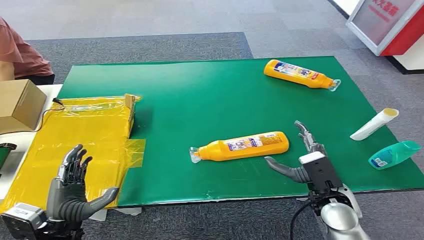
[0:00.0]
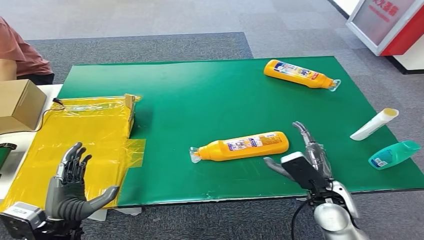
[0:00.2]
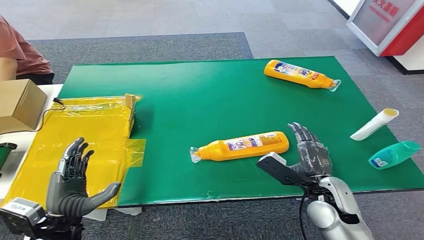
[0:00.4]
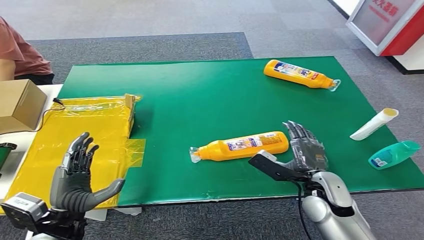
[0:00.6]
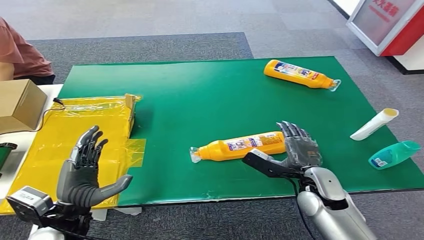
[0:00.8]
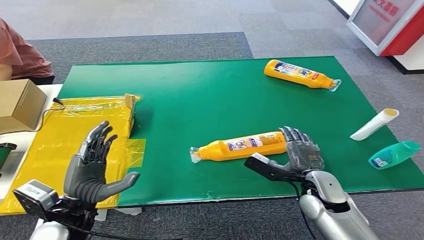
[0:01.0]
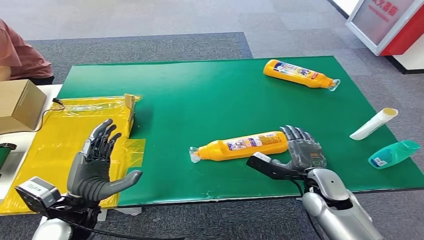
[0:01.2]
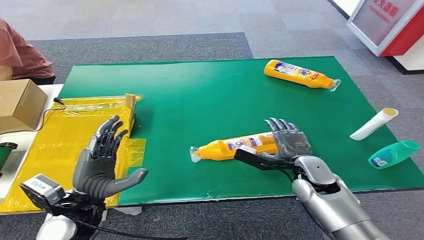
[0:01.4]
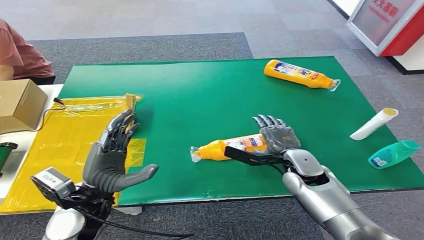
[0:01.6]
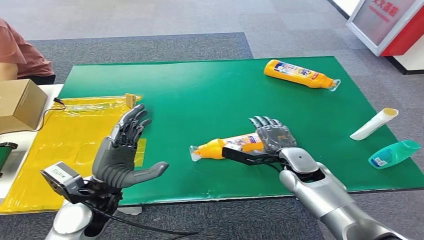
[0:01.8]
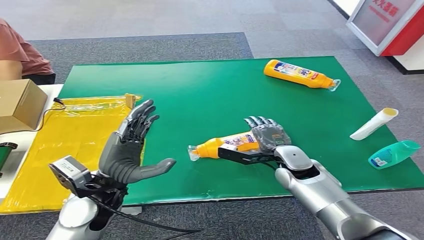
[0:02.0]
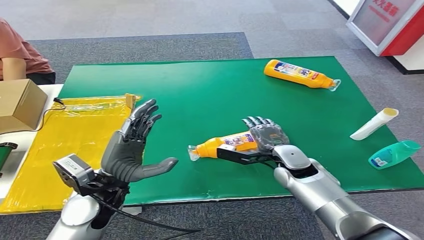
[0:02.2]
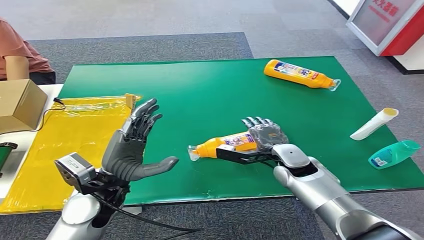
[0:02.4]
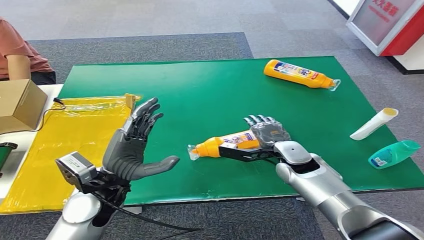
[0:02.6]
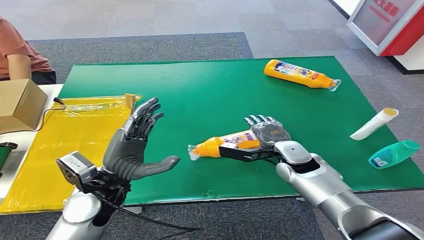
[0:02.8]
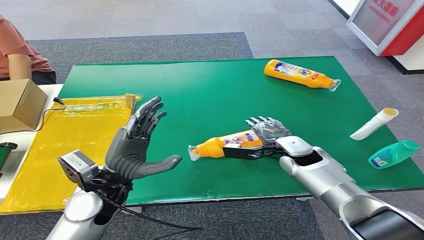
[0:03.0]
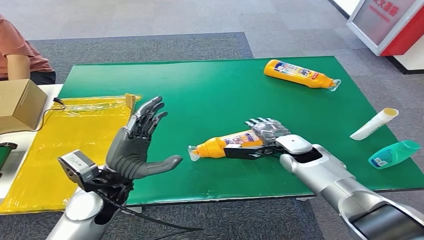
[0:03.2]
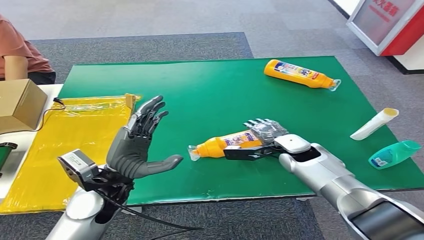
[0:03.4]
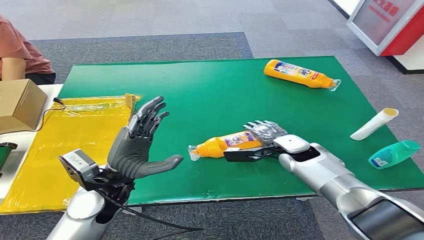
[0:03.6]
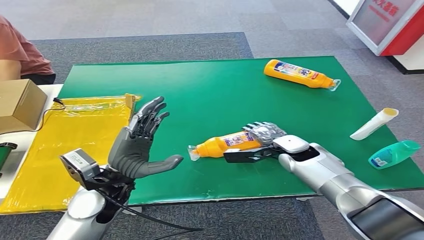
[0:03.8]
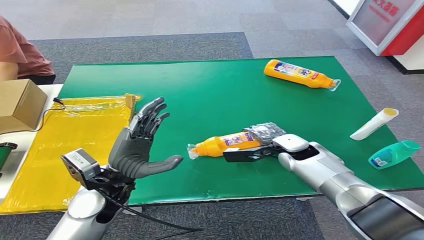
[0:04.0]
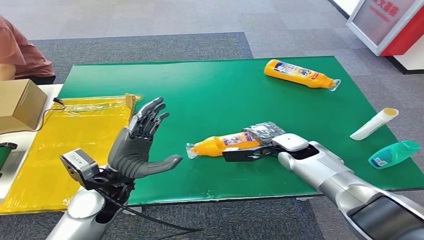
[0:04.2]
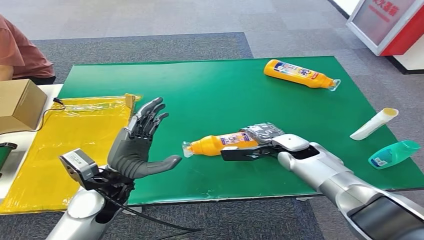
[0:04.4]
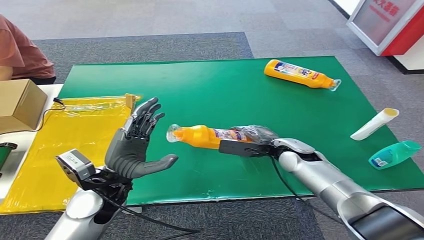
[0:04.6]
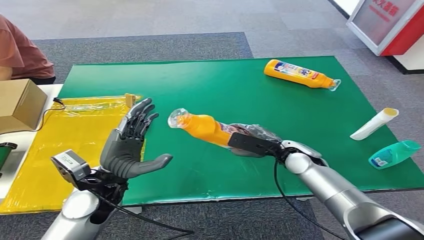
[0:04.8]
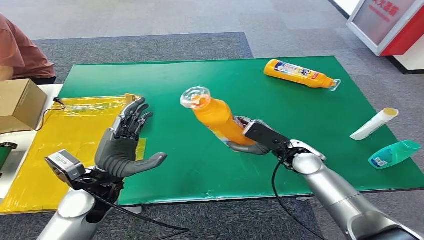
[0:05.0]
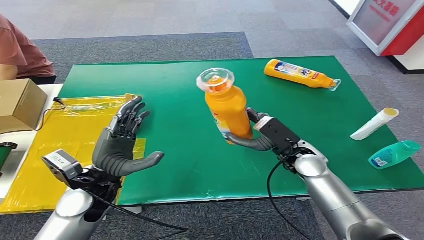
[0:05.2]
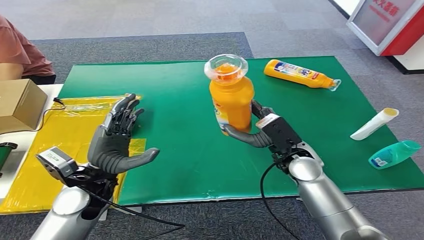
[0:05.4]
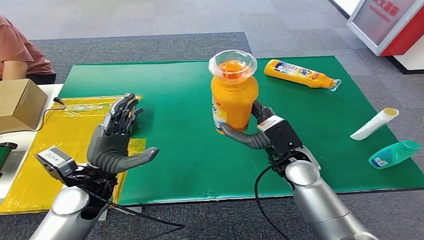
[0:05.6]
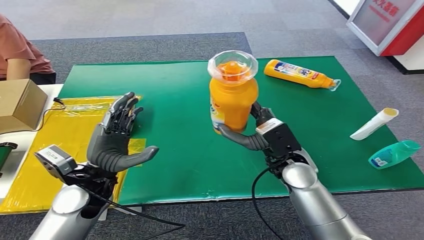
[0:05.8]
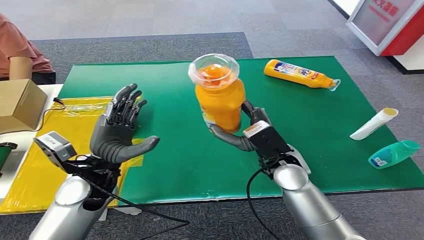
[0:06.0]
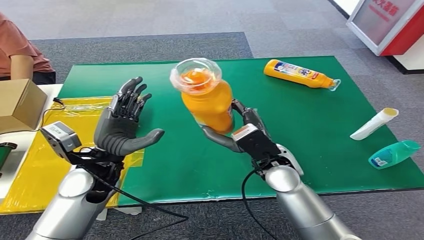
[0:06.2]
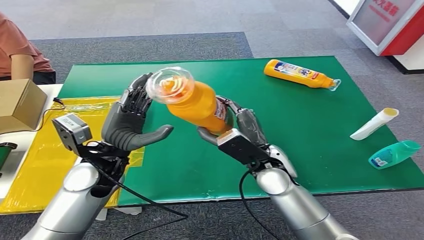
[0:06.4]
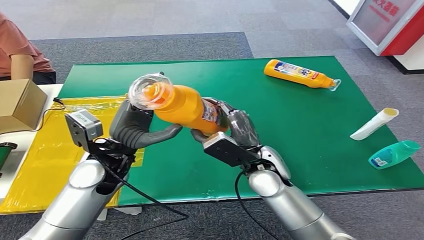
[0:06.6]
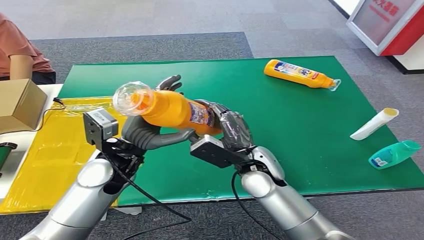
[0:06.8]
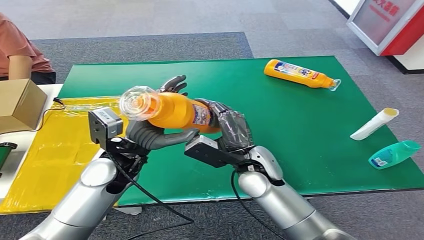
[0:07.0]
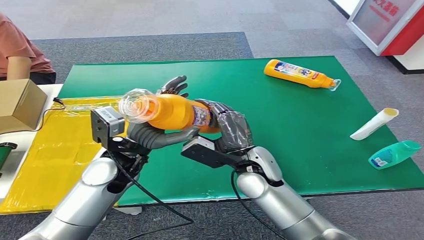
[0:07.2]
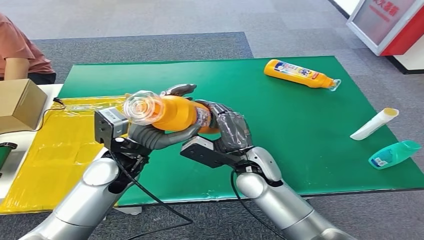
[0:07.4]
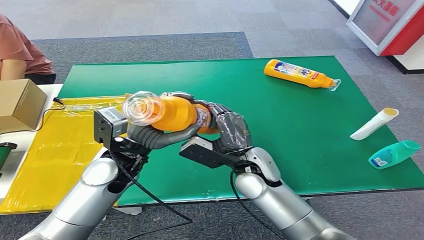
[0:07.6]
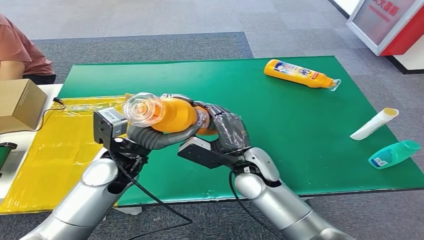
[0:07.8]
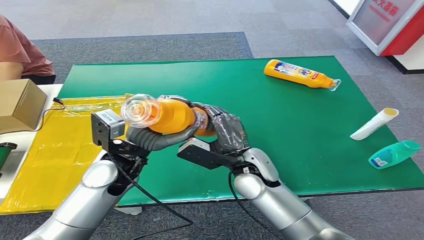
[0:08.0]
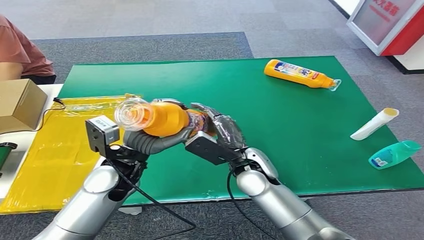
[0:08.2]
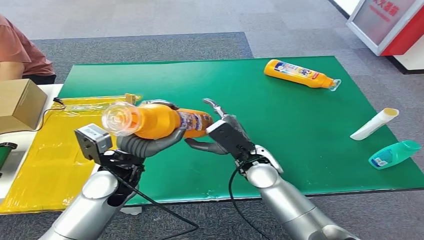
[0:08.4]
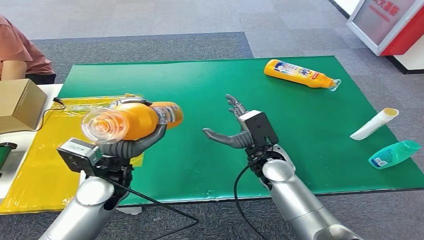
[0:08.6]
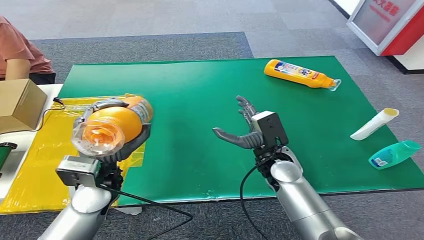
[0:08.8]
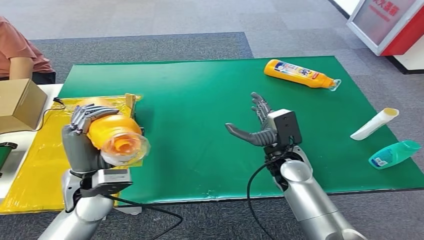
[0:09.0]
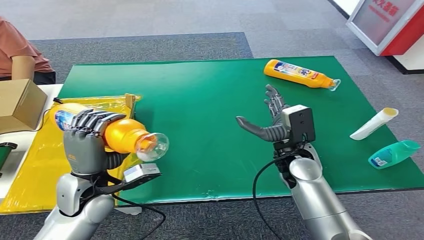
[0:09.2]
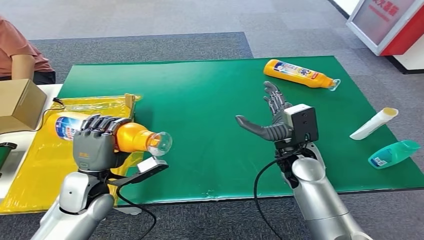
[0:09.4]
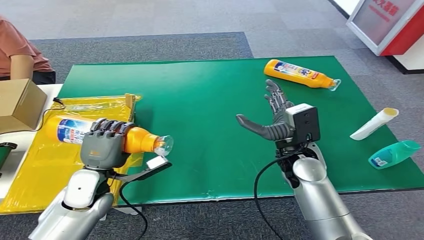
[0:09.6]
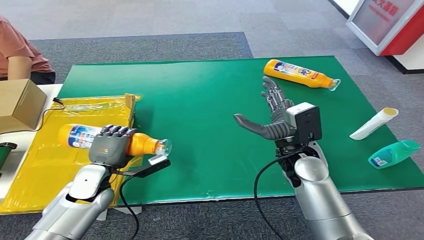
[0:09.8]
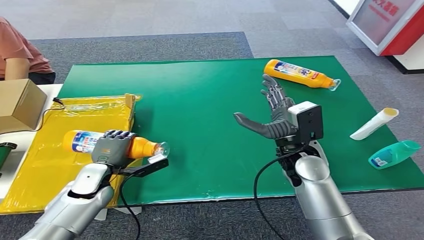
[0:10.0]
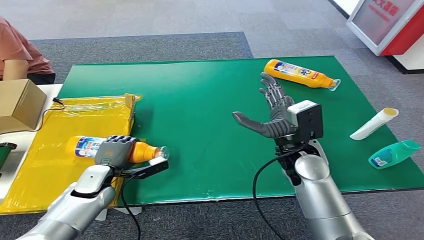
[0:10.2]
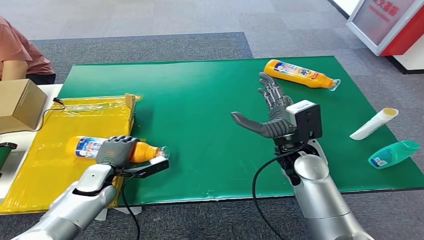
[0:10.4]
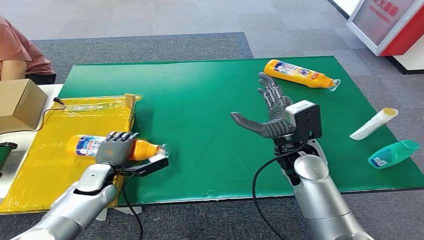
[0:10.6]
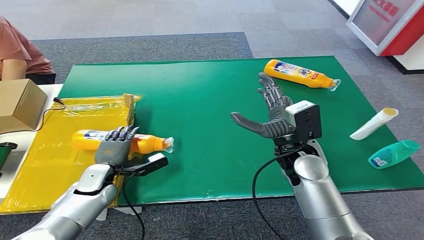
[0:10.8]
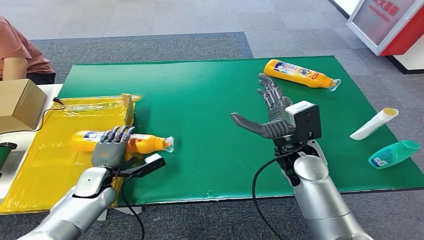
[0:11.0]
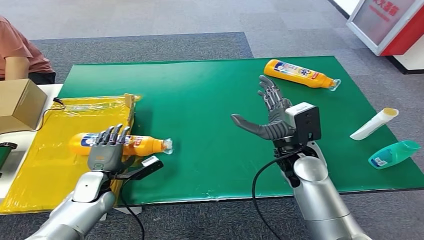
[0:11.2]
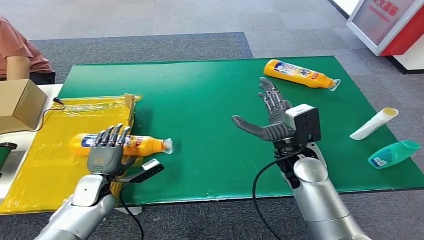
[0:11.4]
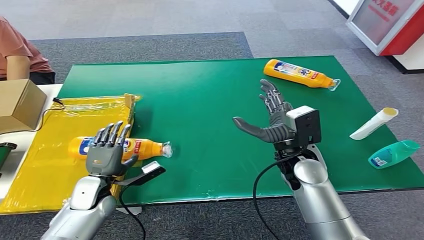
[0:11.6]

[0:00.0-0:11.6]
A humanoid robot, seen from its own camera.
Step, 0:00.0 to 0:05.0: Pick up the bottle from the table.
Step, 0:05.2 to 0:11.6: Turn the bottle to the front side.
0:01.4 to 0:02.8: The left hand moves some 5 cm. The right hand moves forward, roughly 5 cm.
0:02.8 to 0:04.4: There are only small adjustments of the hands.
0:07.2 to 0:08.8: The left hand changes place by approximately 5 cm. The right hand travels to the right by roughly 5 cm.
0:08.8 to 0:10.2: The left hand moves downward and to the left, roughly 15 cm, while the right hand is displaced upward by approximately 5 cm.
